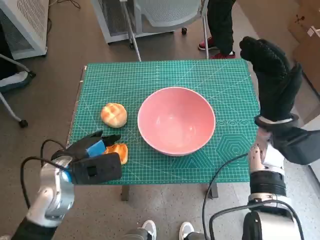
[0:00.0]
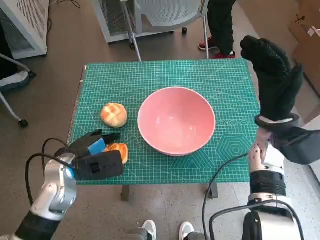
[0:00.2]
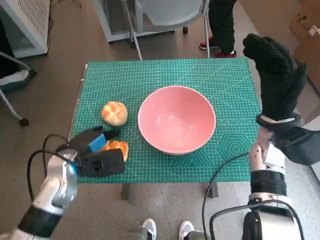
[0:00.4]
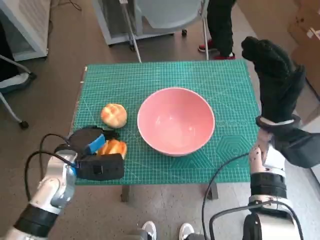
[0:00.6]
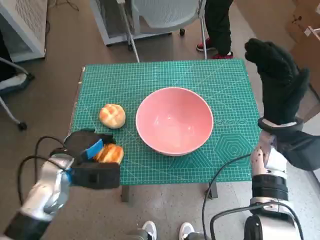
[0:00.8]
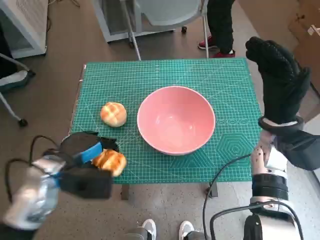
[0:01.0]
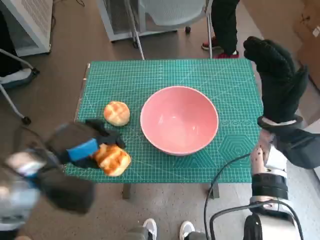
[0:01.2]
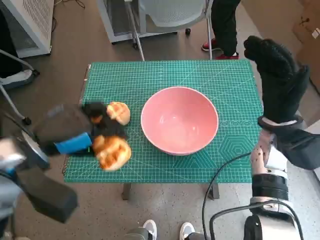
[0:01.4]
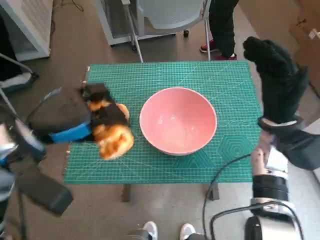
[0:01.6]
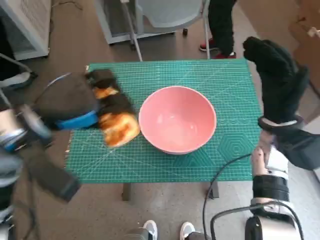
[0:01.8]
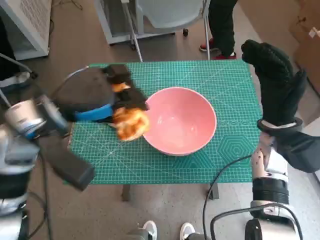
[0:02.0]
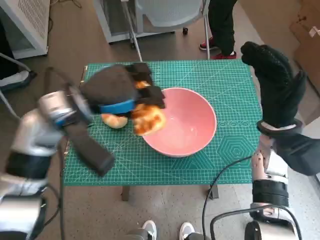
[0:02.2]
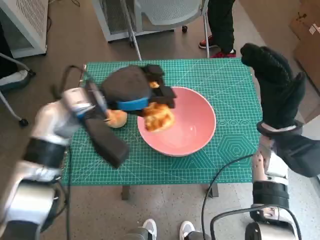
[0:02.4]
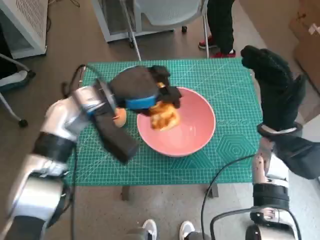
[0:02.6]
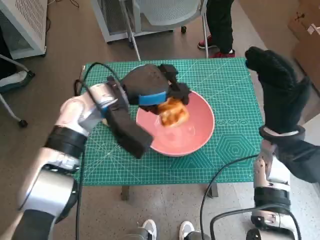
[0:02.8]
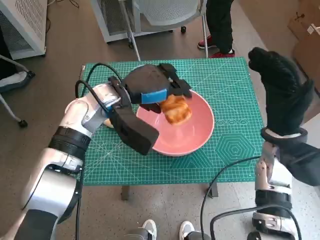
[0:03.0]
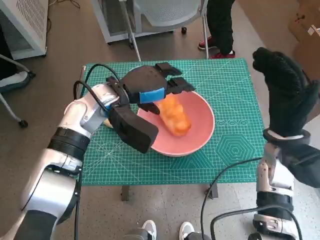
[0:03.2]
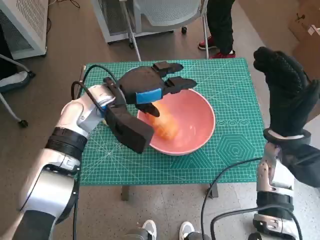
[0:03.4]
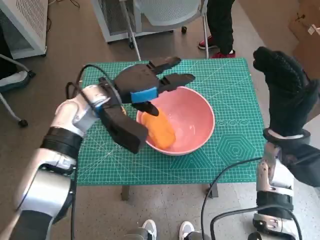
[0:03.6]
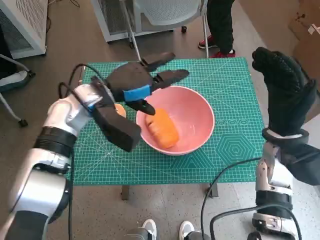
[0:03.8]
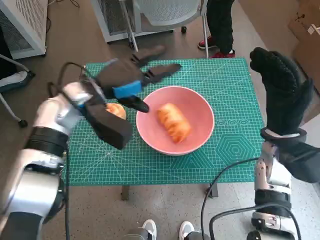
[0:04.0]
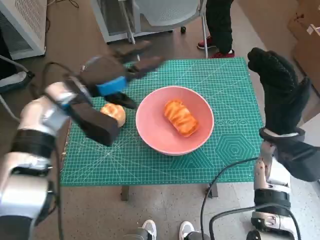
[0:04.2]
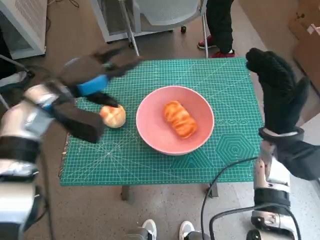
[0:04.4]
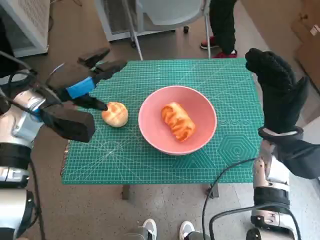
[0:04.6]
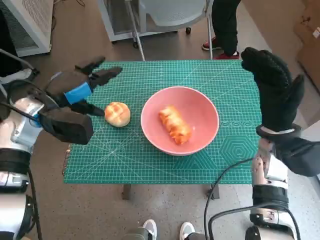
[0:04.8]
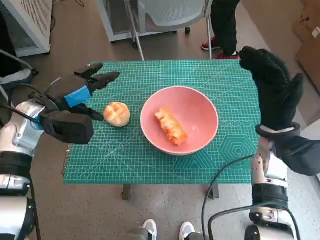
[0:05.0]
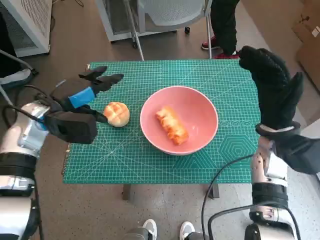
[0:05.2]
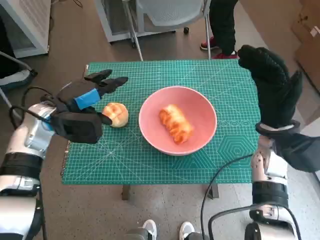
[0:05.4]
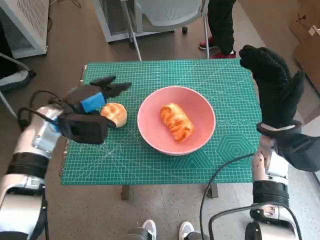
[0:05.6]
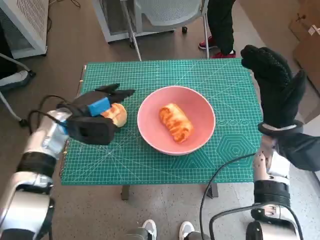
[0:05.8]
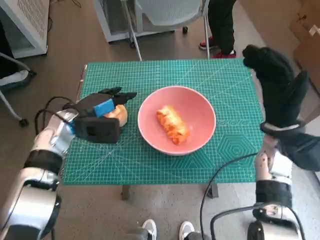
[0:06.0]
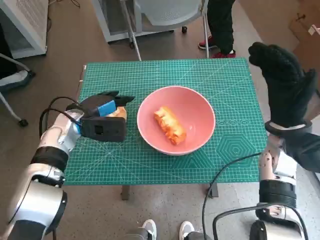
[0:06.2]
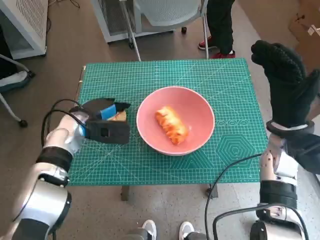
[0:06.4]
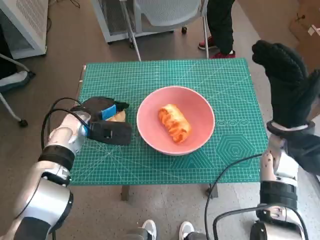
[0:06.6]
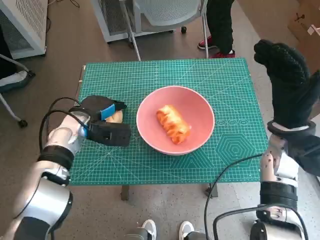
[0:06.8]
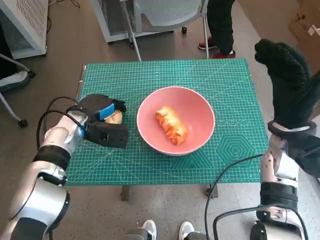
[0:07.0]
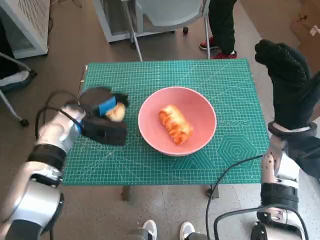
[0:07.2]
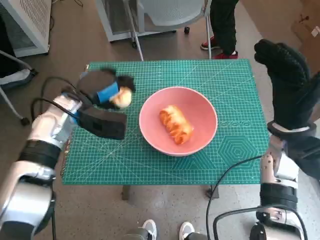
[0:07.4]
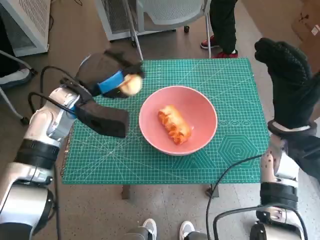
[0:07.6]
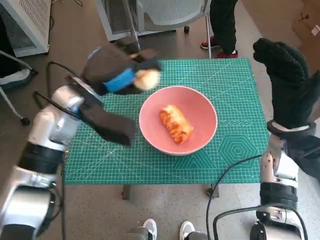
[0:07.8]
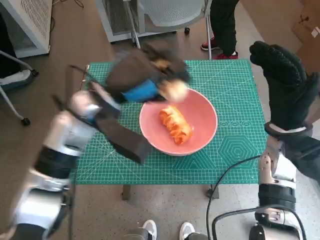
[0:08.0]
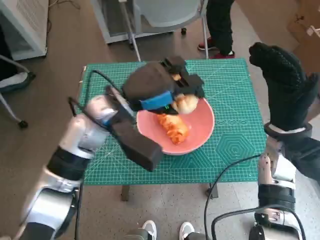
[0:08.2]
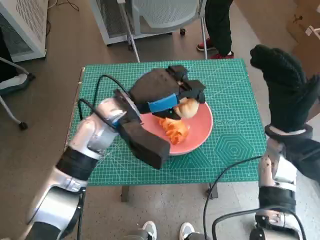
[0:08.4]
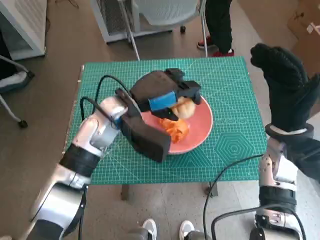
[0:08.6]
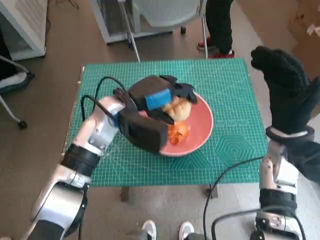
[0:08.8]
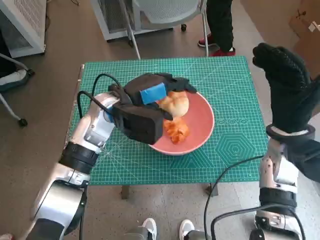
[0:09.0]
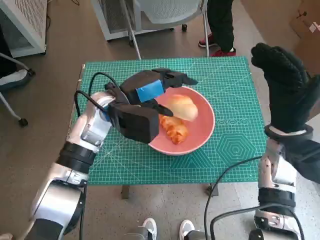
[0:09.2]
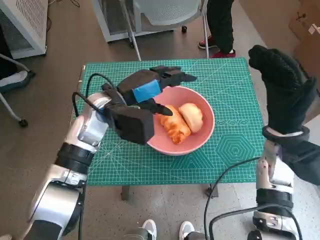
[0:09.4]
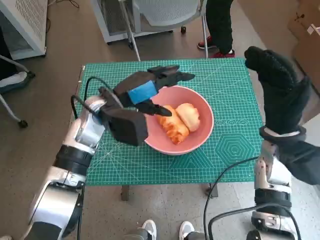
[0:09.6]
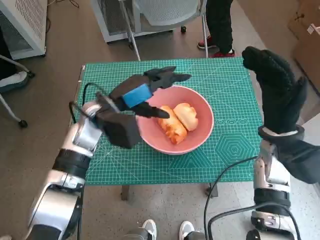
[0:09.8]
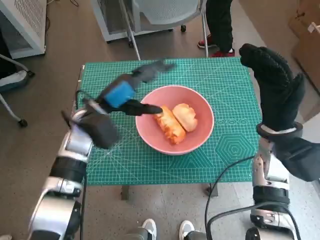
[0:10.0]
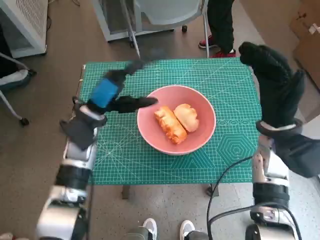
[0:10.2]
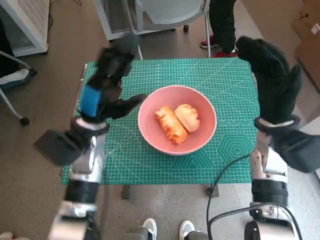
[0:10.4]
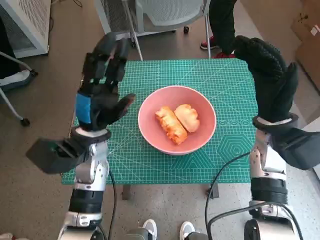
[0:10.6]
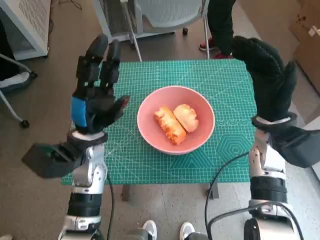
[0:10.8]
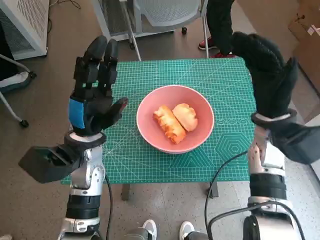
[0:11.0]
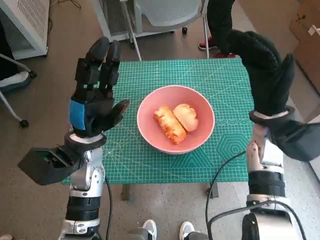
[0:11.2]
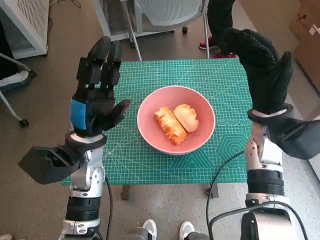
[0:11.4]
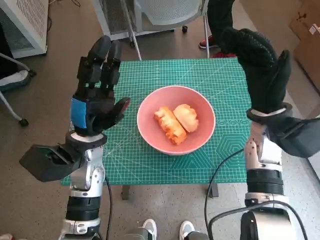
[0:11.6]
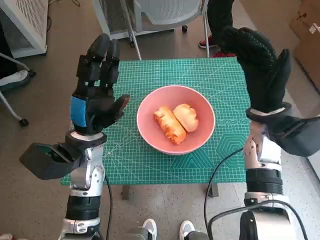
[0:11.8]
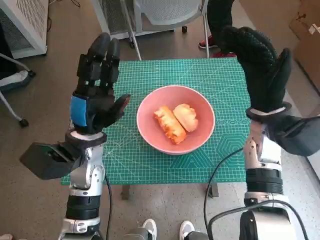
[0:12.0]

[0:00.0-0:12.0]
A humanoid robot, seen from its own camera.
Step, 0:00.8 to 0:03.4: Place the long bread in pink bowl with left hand.
Step, 0:03.6 to 0:07.0: Grasp the round bread with left hand.
Step, 0:07.2 to 0:09.4: Place the round bread in pink bowl with left hand.
0:00.0 to 0:01.6: The left hand is displaced upward by some 10 cm.
0:01.6 to 0:03.0: The left hand shifts roughly 15 cm forward and to the right.
0:03.0 to 0:04.4: The left hand is displaced to the left by some 10 cm.
0:04.4 to 0:06.0: The left hand travels downward by some 10 cm.
0:06.0 to 0:07.6: The left hand travels upward by about 5 cm.
0:07.6 to 0:09.0: The left hand heads to the right, covering some 10 cm.
0:09.0 to 0:10.4: The left hand heads to the left, covering about 5 cm.

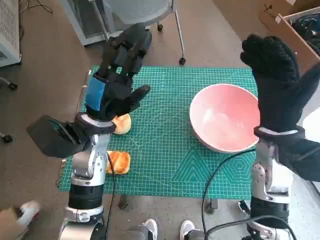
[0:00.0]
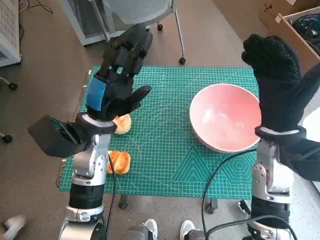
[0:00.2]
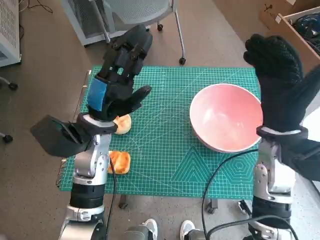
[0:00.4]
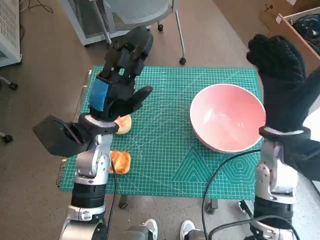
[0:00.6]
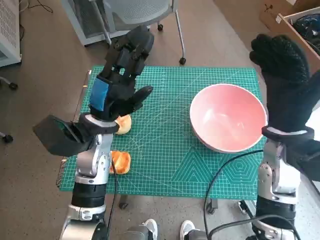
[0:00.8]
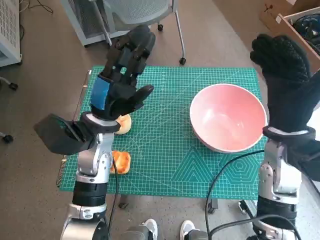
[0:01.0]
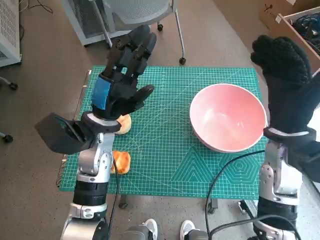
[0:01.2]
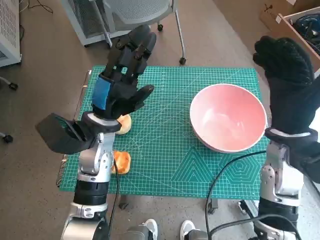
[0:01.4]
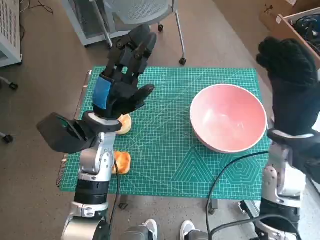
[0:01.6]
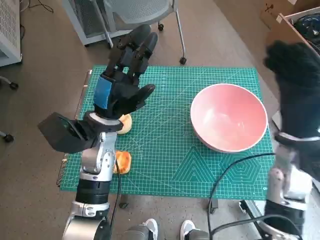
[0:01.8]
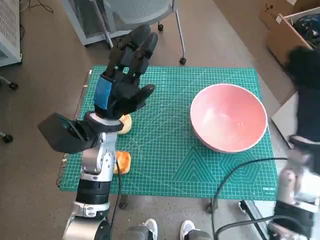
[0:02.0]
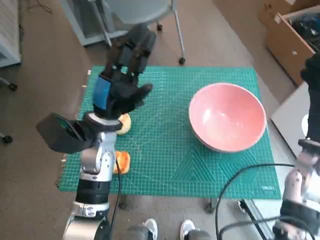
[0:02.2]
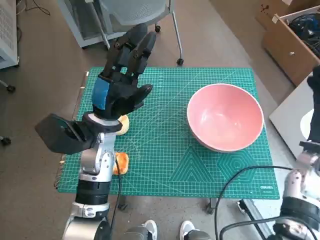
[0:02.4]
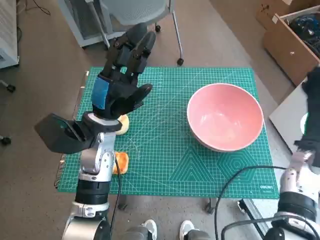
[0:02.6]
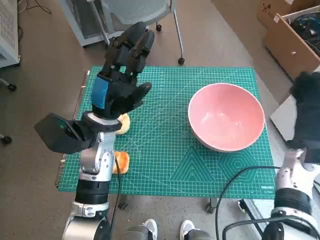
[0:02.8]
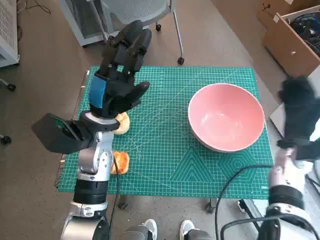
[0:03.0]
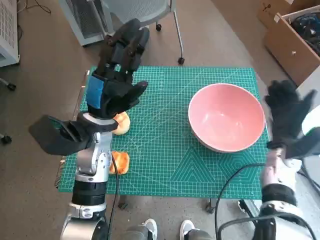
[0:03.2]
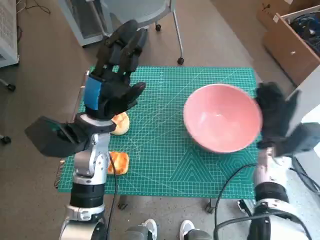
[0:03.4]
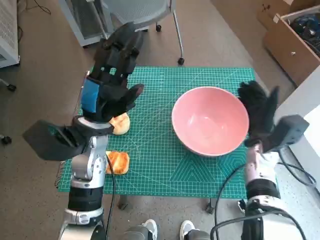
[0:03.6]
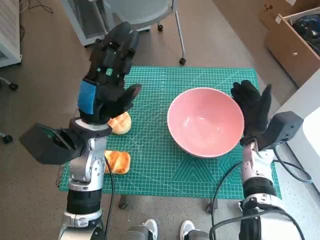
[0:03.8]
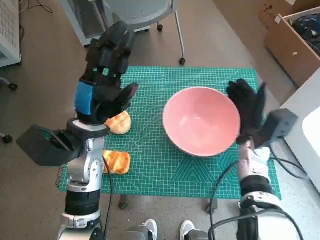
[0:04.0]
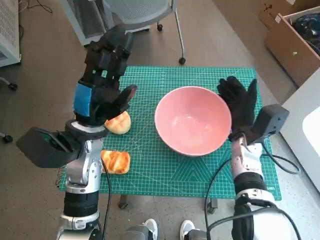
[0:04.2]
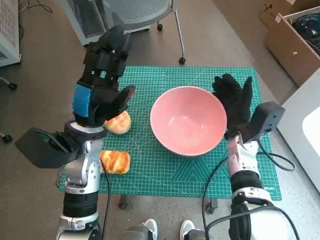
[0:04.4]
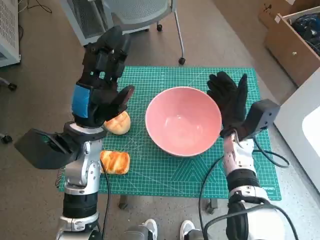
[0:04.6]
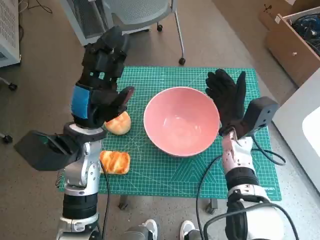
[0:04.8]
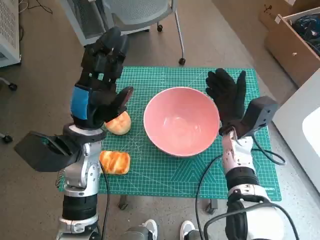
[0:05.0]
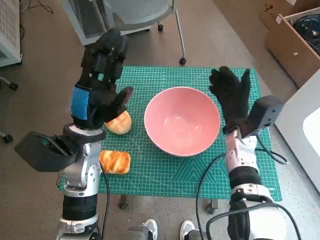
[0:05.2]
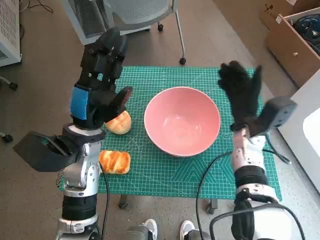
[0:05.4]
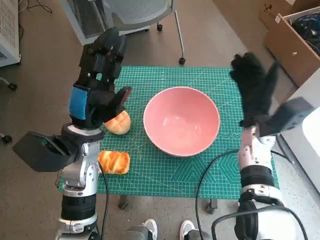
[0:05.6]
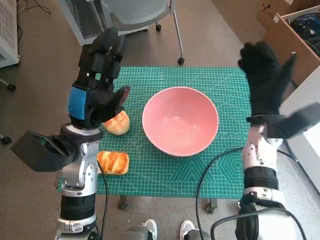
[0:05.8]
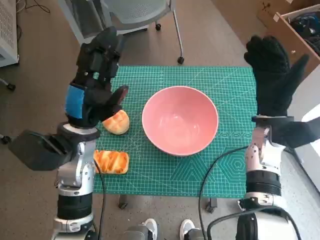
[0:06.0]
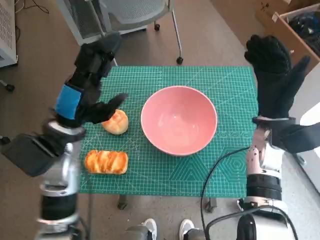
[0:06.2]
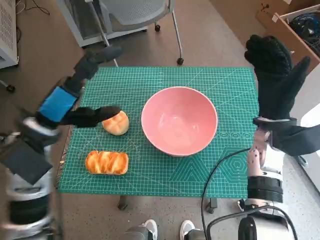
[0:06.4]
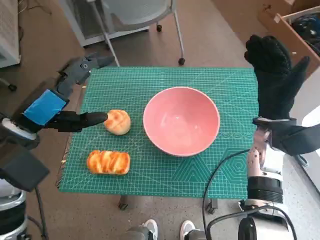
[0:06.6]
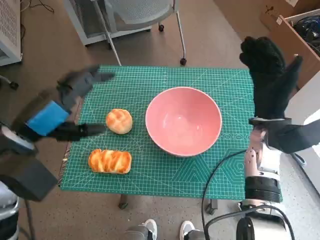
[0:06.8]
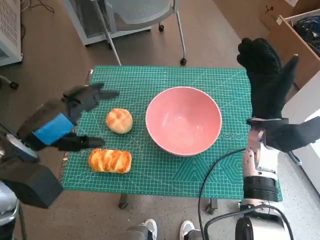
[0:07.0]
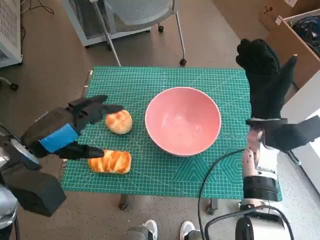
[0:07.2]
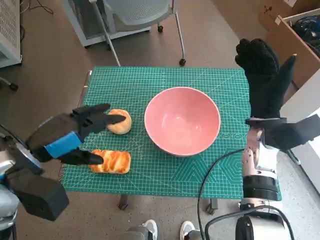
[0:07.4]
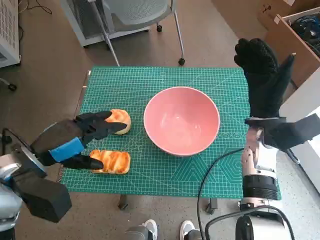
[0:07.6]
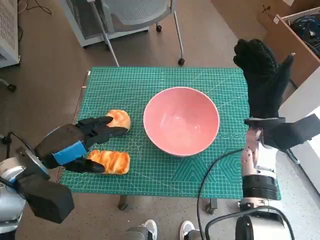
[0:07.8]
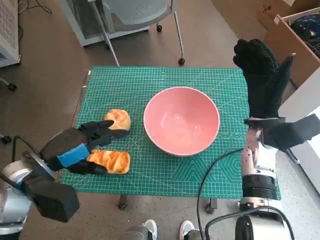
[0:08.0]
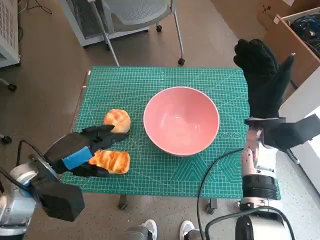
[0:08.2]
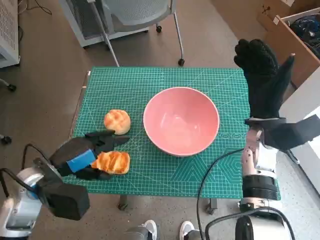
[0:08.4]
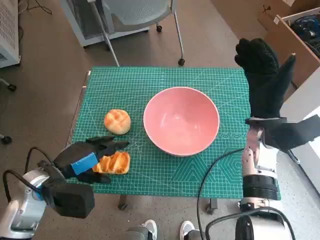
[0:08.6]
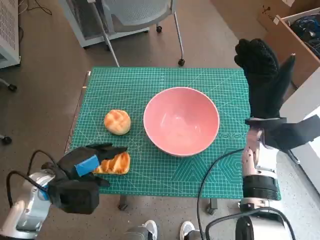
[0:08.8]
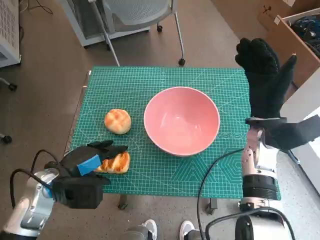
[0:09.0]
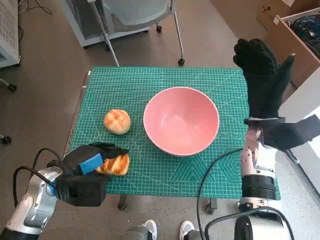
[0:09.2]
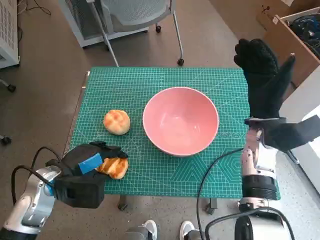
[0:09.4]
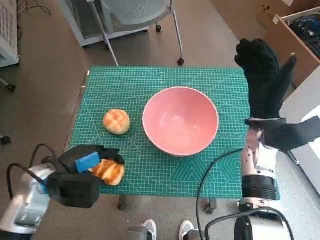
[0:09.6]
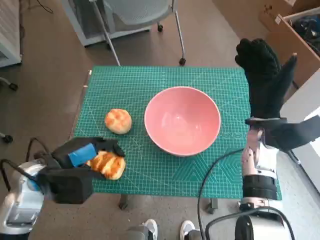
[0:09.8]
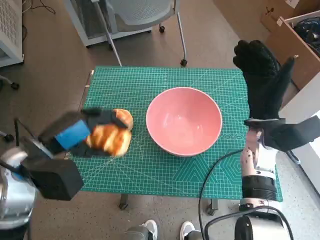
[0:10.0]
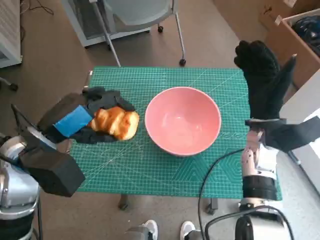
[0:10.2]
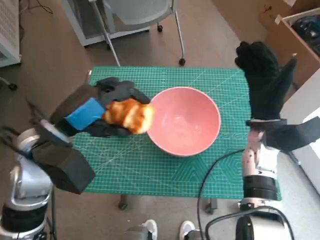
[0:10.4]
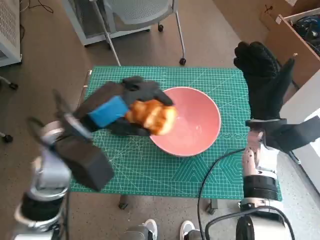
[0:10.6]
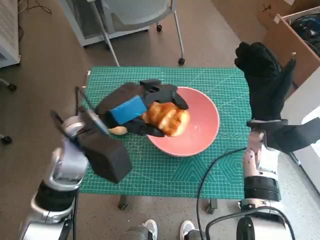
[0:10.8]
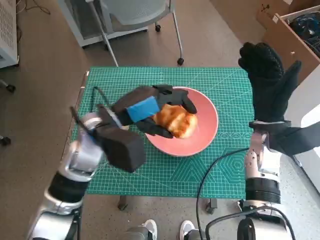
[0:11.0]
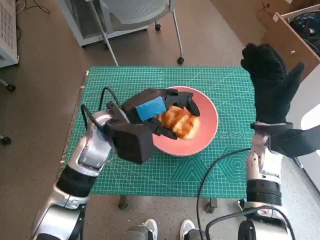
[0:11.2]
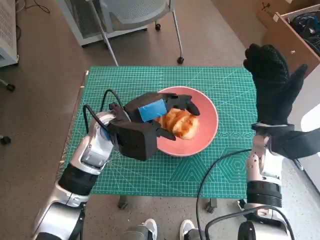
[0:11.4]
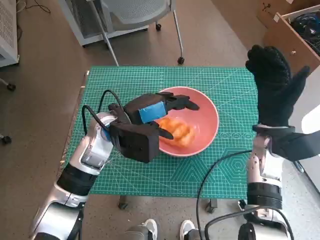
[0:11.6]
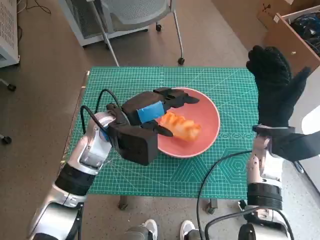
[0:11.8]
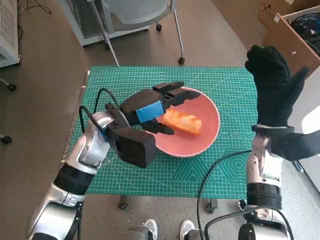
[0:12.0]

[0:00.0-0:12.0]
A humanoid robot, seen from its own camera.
Step, 0:00.0 to 0:04.8: Move the pink bowl to the center of table with right hand.
Step, 0:05.0 to 0:09.2: Grasp the long bread with left hand.
Step, 0:09.4 to 0:11.8: Place the long bread in pink bowl with left hand.
0:01.6 to 0:03.0: The right hand heads downward and to the right, covering about 10 cm.
0:03.0 to 0:04.4: The right hand is displaced to the left by about 10 cm.
0:04.4 to 0:06.0: The right hand moves upward, roughly 5 cm.
0:06.0 to 0:07.6: The left hand moves to the left and backward, some 10 cm.
0:07.6 to 0:09.0: The left hand goes some 10 cm downward.
0:09.0 to 0:10.4: The left hand is displaced upward by roughly 10 cm.
0:10.4 to 0:12.0: The left hand travels to the right, forward and downward by about 10 cm.
